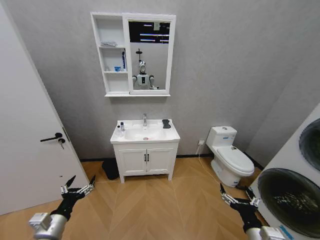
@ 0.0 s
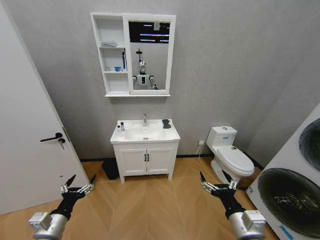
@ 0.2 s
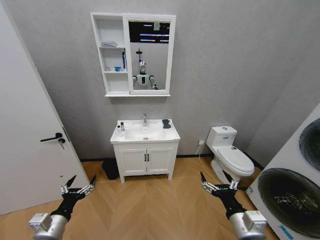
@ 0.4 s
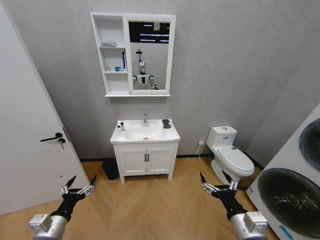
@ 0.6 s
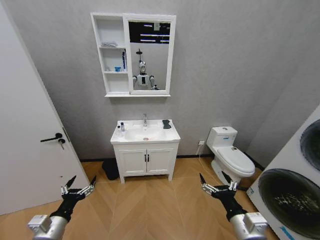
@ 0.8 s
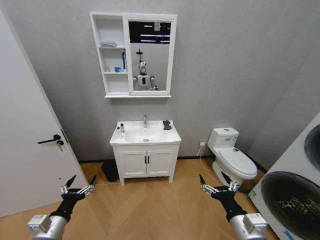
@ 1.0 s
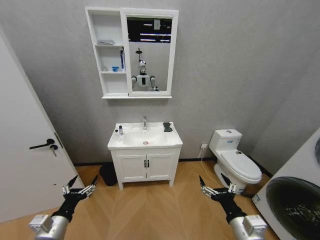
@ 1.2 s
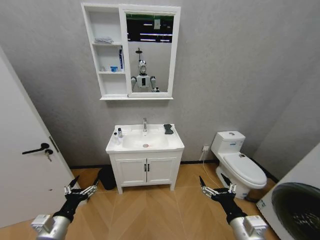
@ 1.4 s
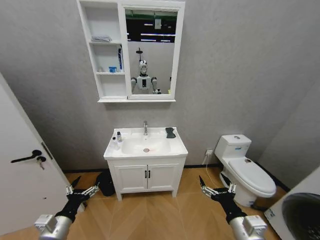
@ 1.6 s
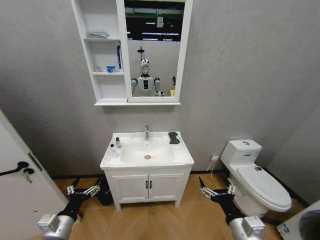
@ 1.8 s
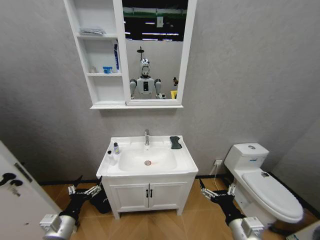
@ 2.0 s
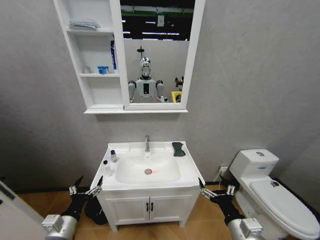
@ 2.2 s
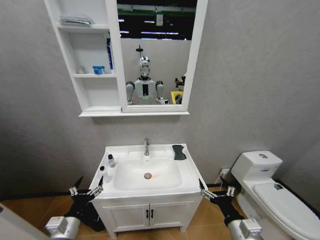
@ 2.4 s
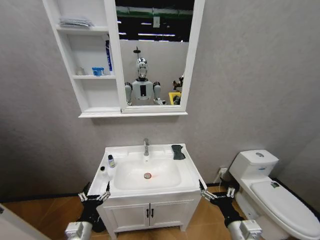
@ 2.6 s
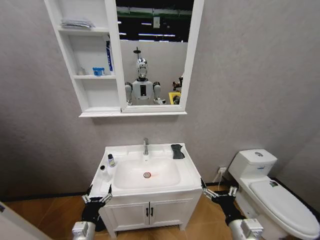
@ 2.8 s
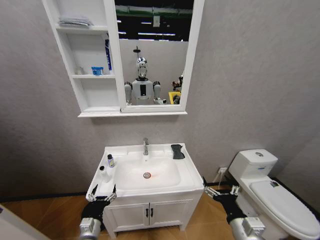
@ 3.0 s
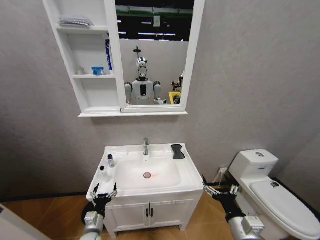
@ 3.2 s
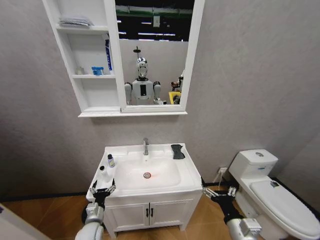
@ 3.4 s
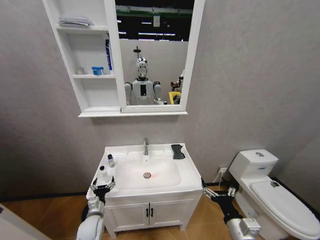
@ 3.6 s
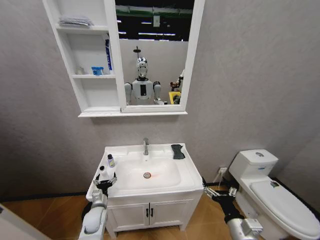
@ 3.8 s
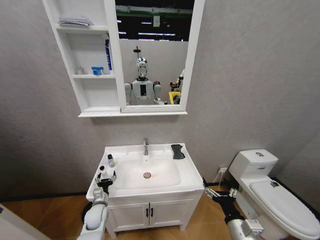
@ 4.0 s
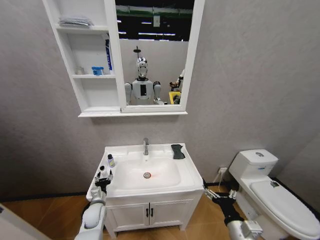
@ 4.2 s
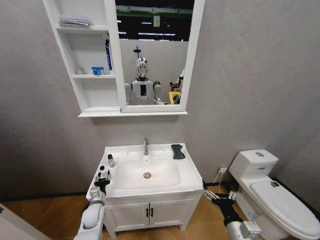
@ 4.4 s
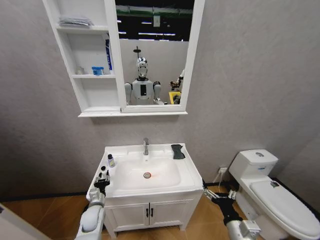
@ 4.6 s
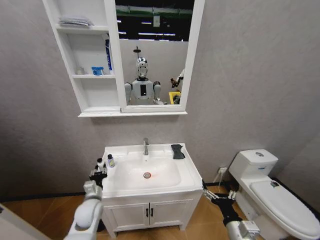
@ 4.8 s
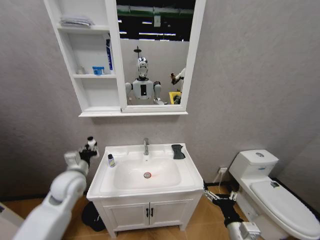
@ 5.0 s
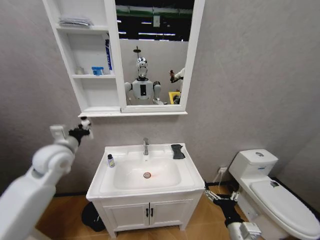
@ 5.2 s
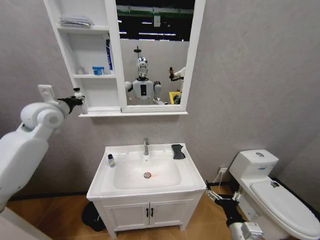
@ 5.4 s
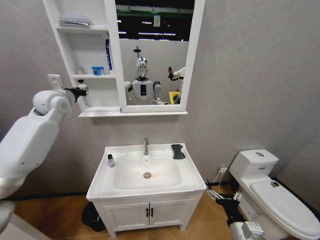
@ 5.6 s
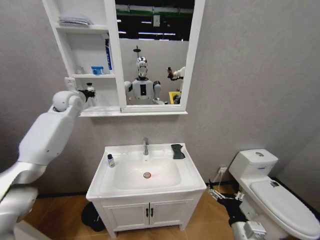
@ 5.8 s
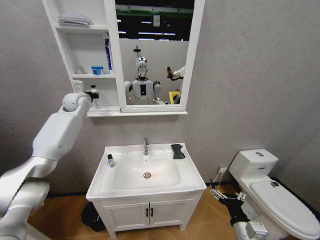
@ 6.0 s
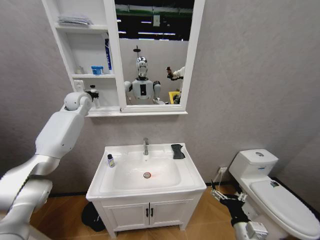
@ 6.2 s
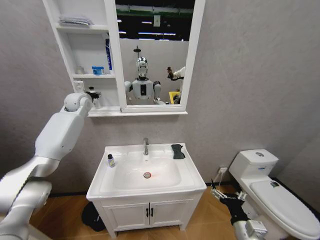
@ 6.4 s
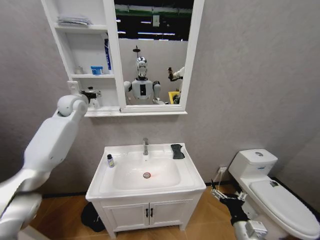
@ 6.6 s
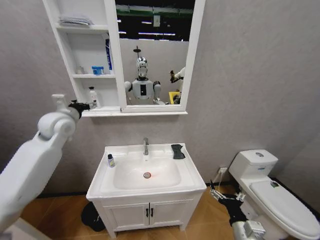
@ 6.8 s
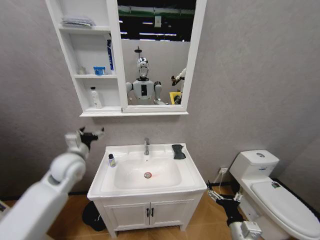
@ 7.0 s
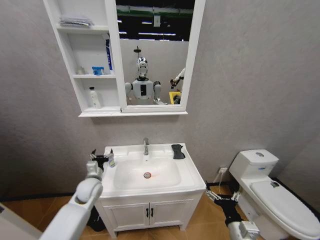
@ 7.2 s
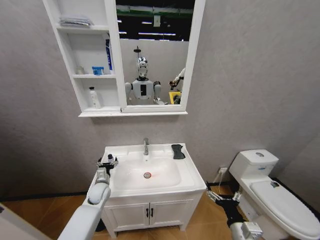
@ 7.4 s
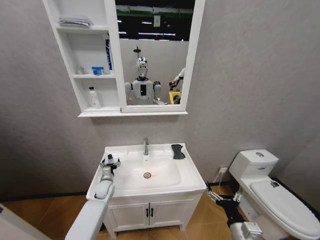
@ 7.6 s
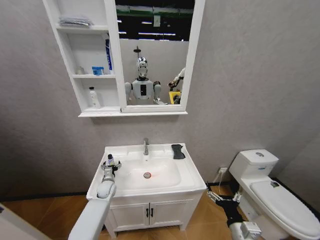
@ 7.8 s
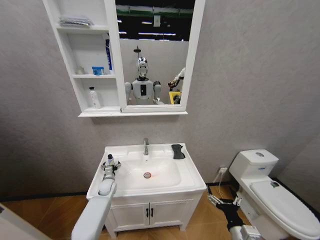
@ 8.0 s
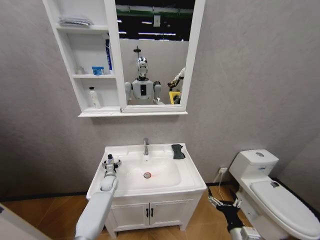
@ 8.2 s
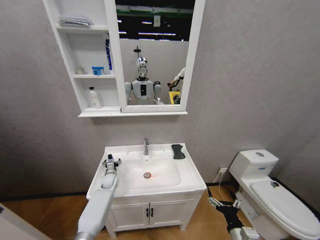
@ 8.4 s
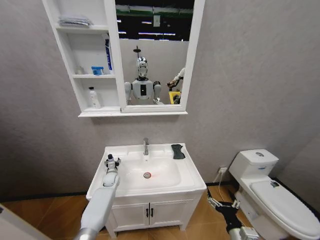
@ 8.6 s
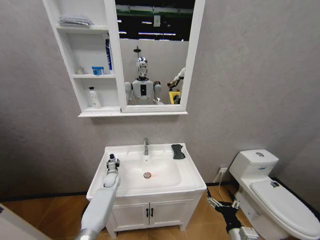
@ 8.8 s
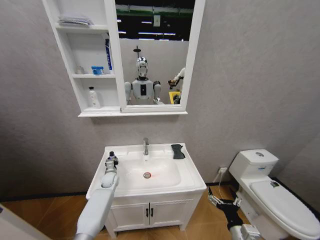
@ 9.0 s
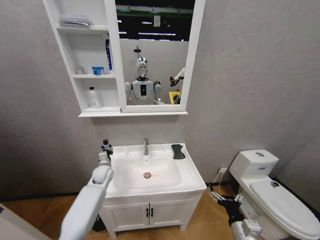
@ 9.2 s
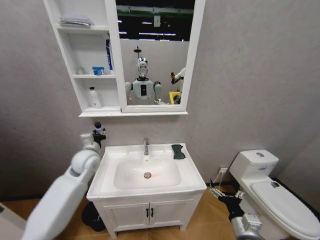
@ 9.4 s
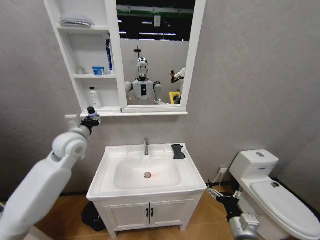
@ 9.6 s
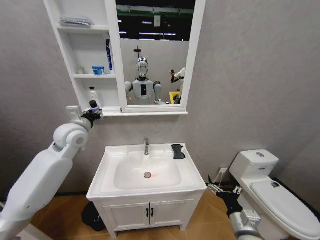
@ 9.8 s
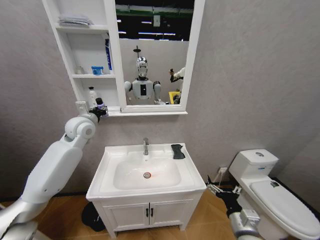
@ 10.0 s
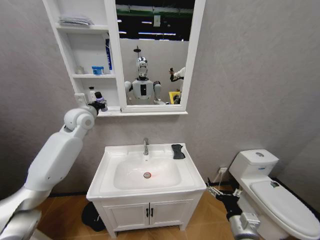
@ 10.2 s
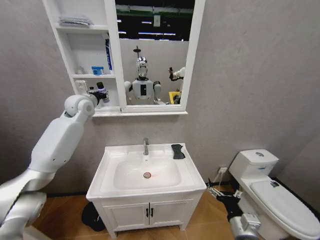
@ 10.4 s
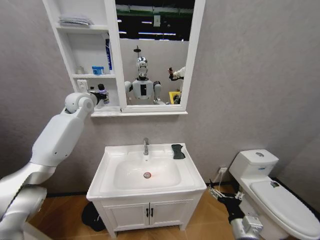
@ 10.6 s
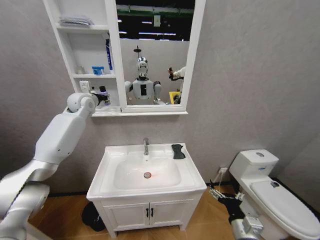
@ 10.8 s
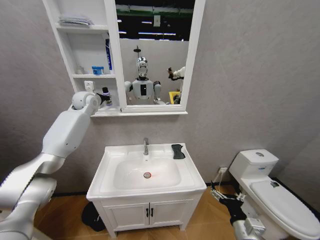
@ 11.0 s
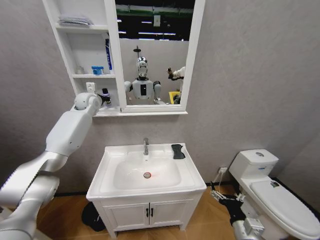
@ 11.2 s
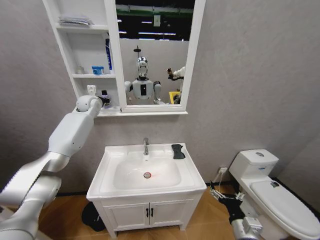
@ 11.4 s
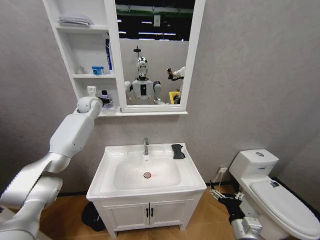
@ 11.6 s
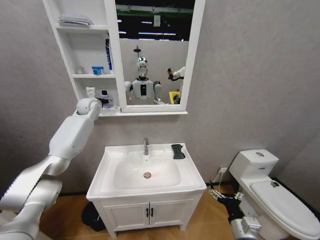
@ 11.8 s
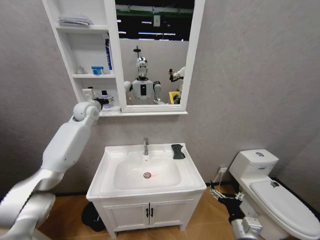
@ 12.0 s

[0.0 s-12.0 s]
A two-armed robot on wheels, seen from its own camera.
Task of the whole recording: Move facial cleanser and shampoo from washbasin to cabinet, then wipe washbasin with towel.
1.6 to 3.0 s: The left gripper is displaced downward and to the right by some 15 cm.
3.0 to 4.4 s: The left gripper travels forward by about 15 cm, and closes.
4.4 to 6.0 s: The left gripper heads upward and forward, covering roughly 50 cm.
6.0 to 7.6 s: The left gripper is displaced downward by some 40 cm, and opens.
7.6 to 9.0 s: The left gripper goes roughly 5 cm forward, and closes its fingers.
9.0 to 10.4 s: The left gripper goes some 40 cm upward.
10.4 to 12.0 s: The left gripper opens.

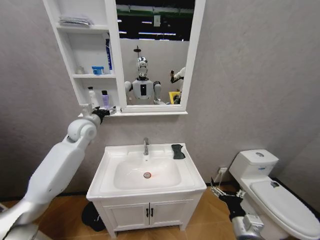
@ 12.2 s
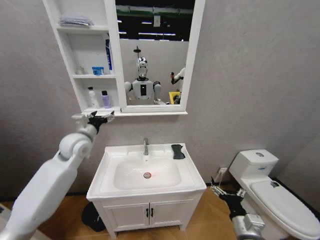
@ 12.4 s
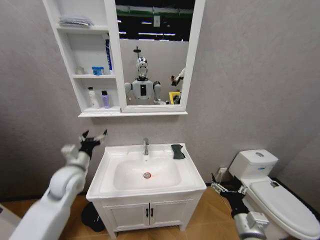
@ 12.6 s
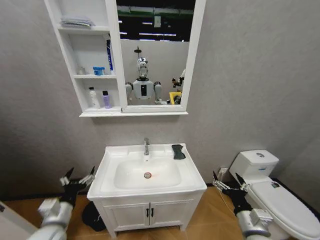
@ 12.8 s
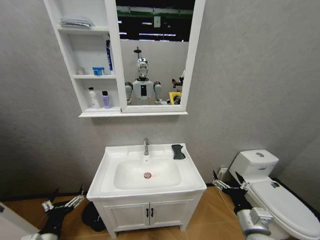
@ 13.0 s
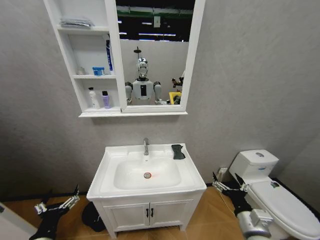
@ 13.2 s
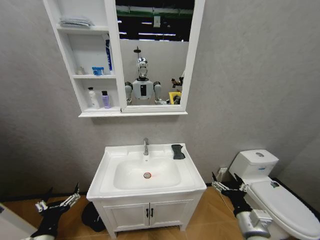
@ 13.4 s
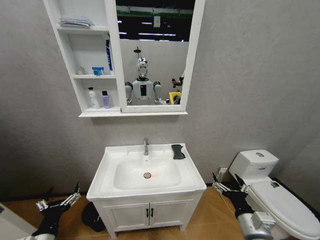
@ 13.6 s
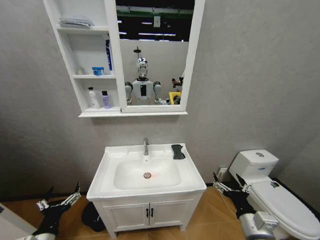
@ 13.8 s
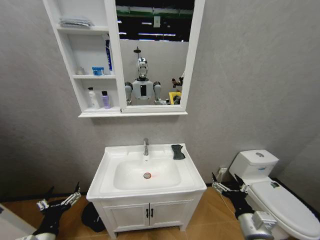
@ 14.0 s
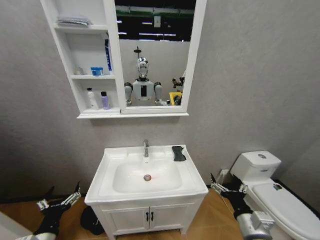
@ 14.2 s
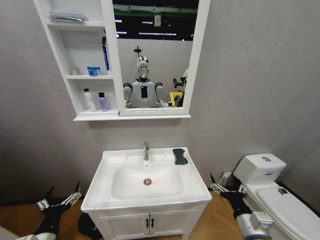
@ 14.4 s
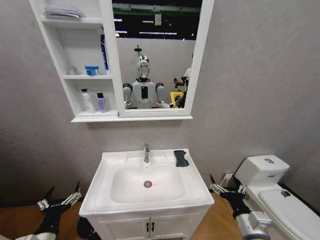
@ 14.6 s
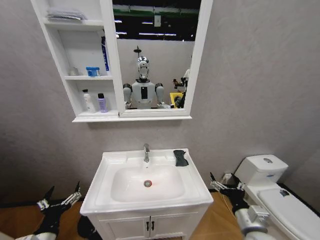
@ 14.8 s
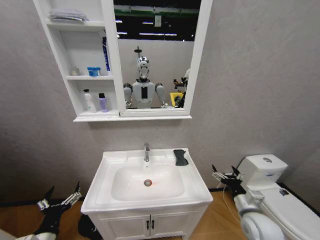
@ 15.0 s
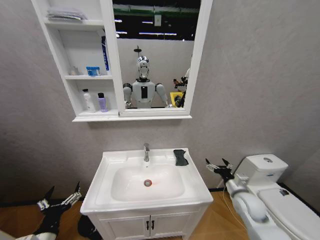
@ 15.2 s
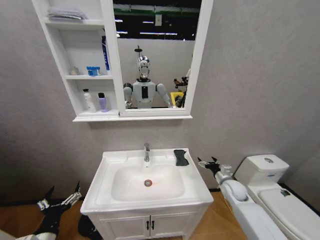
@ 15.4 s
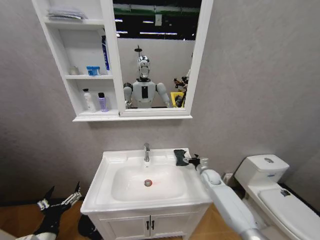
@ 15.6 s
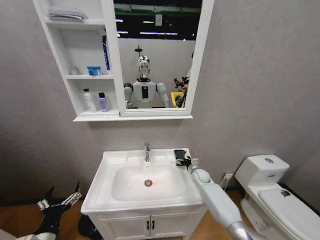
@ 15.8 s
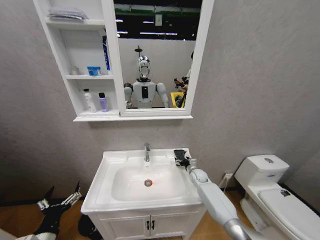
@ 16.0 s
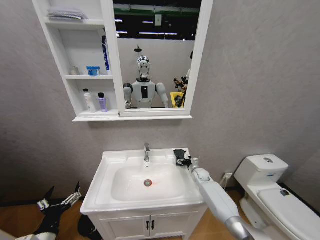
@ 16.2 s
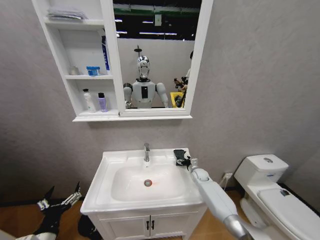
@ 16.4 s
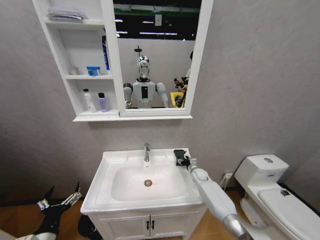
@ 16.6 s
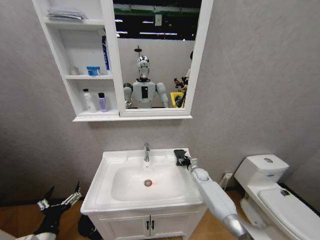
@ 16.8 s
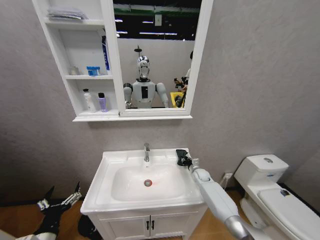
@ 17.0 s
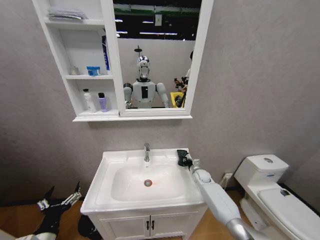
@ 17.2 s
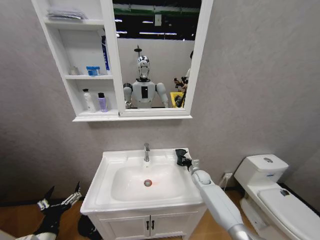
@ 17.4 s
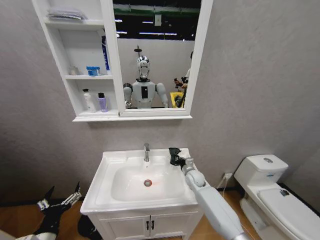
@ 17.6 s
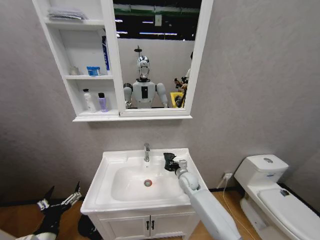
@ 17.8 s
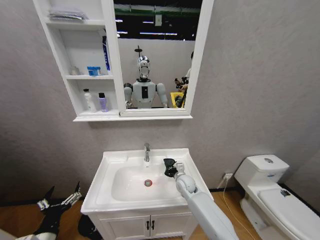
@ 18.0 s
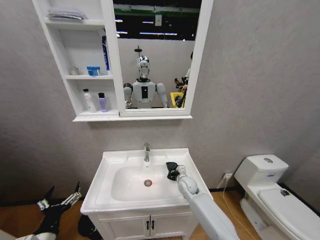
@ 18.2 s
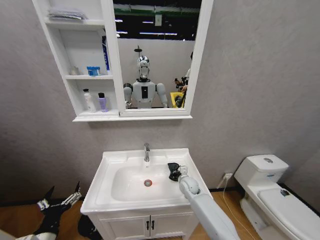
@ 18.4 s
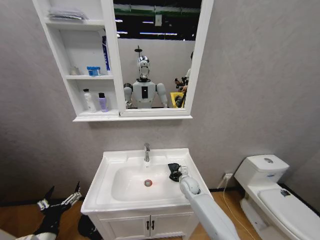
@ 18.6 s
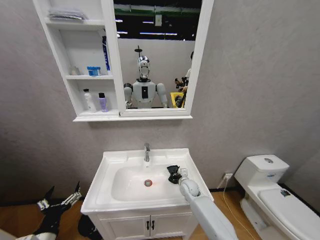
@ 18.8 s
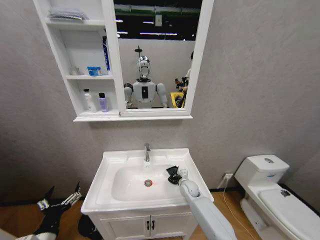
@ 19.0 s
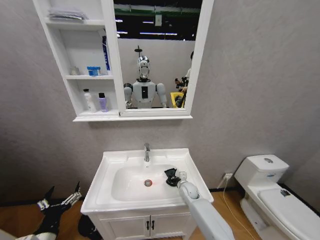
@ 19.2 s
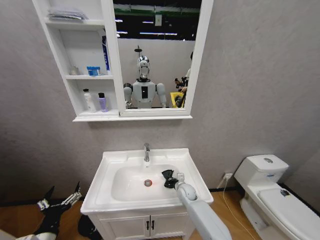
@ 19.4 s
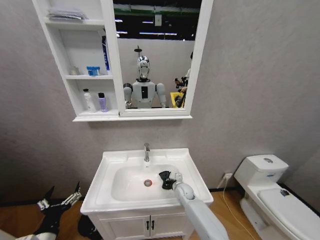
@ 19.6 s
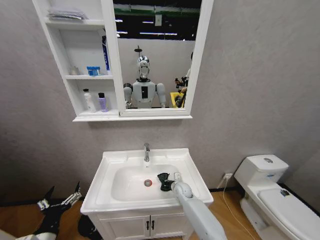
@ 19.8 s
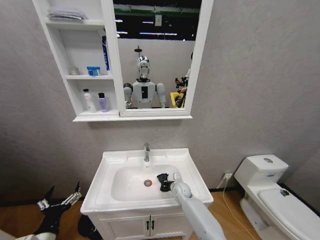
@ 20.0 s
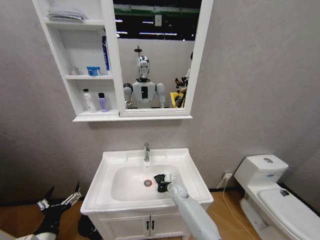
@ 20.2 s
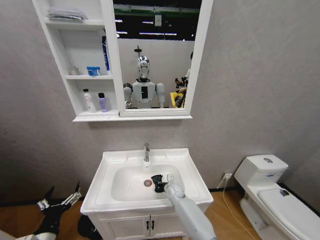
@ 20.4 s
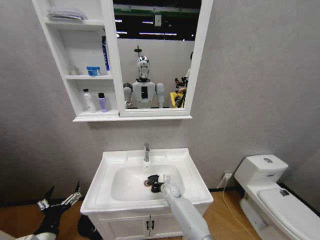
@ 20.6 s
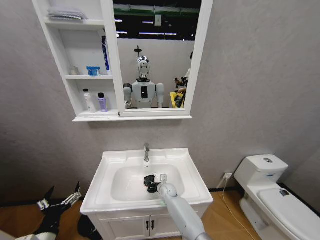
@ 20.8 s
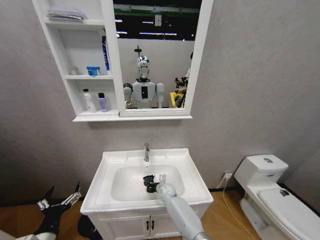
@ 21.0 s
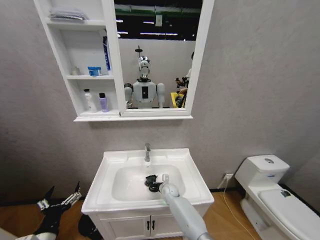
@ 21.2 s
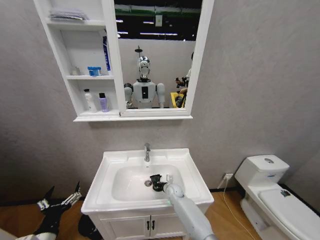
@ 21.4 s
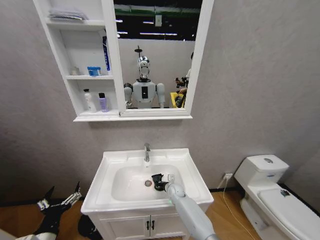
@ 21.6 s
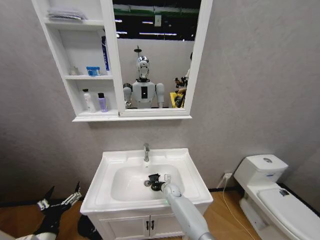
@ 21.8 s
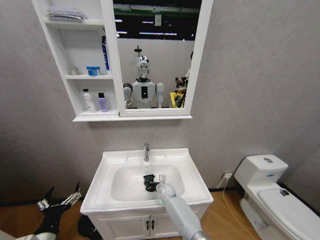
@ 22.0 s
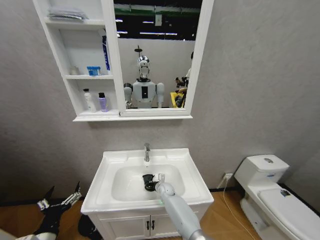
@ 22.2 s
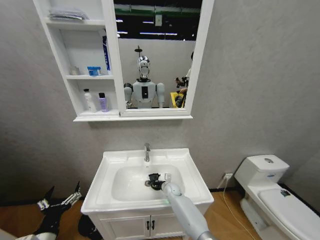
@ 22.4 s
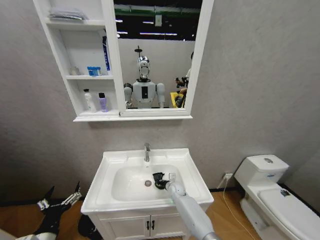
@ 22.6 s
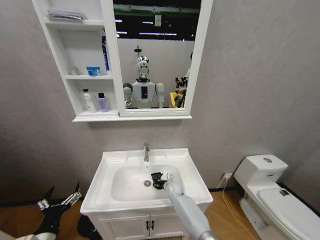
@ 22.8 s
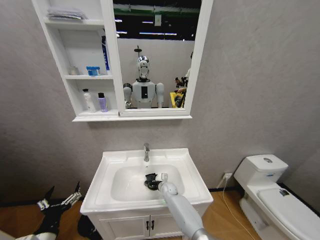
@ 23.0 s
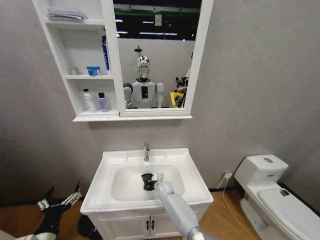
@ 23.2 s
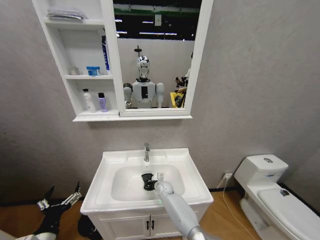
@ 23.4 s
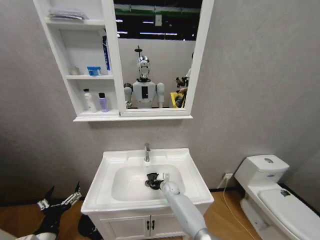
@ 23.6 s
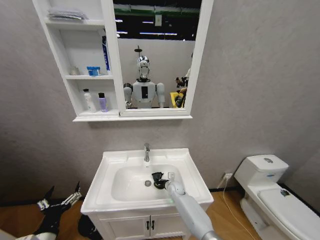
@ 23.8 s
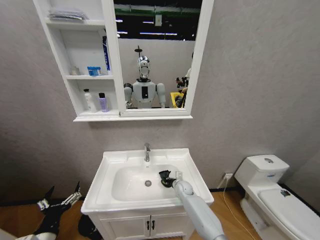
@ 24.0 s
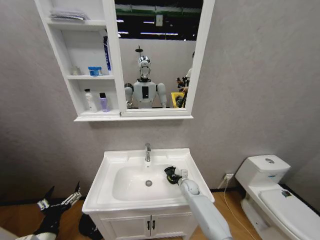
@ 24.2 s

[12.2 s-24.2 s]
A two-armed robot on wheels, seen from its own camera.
Task of the whole recording: Move facial cleanser and shampoo from washbasin to cabinet, then wipe washbasin with towel.
12.2 to 13.8 s: The right gripper moves upward, roughly 5 cm. The left gripper moves backward and downward, about 40 cm.
13.8 to 15.2 s: The right gripper is displaced forward and to the right by roughly 15 cm.
15.2 to 16.6 s: The right gripper travels forward and downward by approximately 25 cm.
16.6 to 18.2 s: The right gripper travels to the left and backward by approximately 15 cm, and closes up.
18.2 to 19.8 s: The right gripper shifts approximately 5 cm downward.
19.8 to 21.2 s: The right gripper shifts about 5 cm to the left.
21.2 to 22.6 s: The right gripper swings left and right, roughly 5 cm each way, with 2 reversals.
22.6 to 24.2 s: The right gripper is displaced to the right by about 5 cm.
